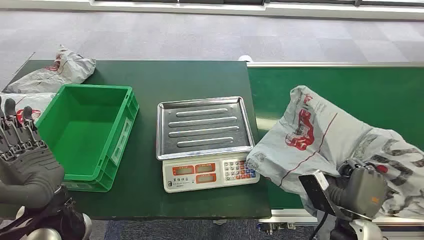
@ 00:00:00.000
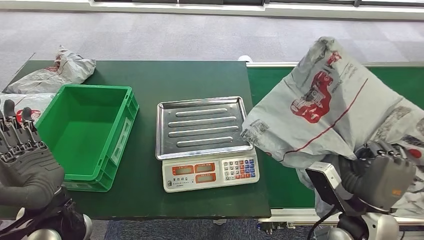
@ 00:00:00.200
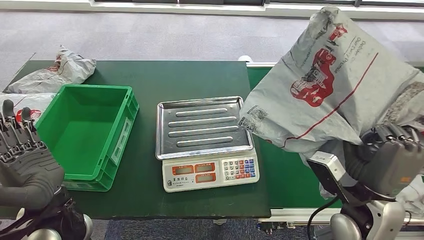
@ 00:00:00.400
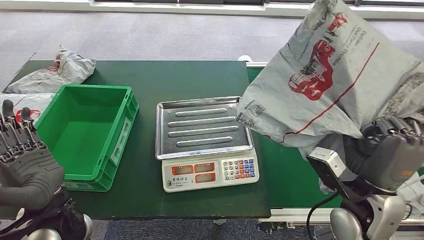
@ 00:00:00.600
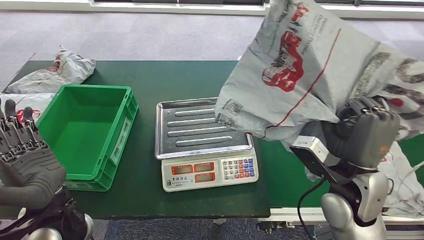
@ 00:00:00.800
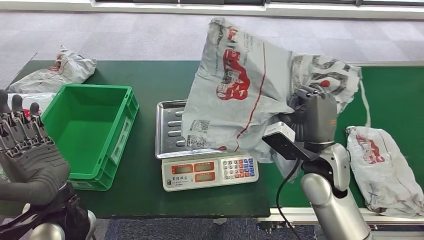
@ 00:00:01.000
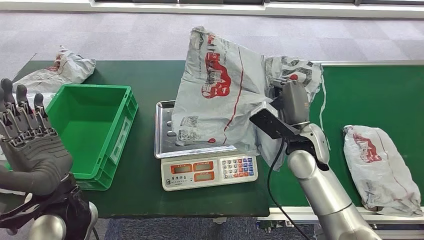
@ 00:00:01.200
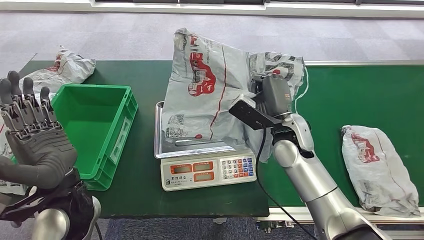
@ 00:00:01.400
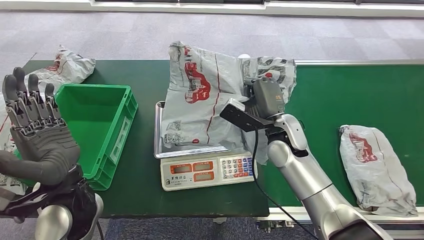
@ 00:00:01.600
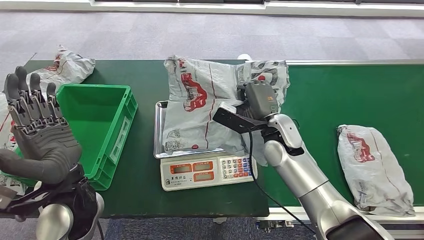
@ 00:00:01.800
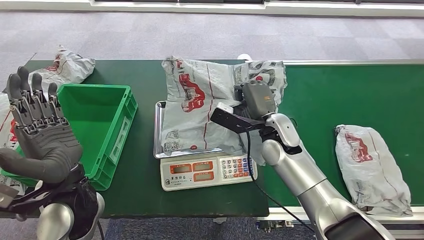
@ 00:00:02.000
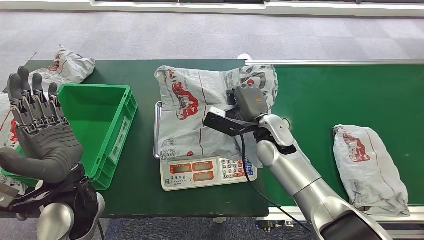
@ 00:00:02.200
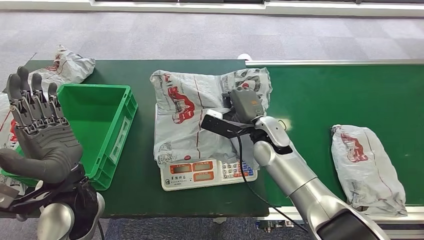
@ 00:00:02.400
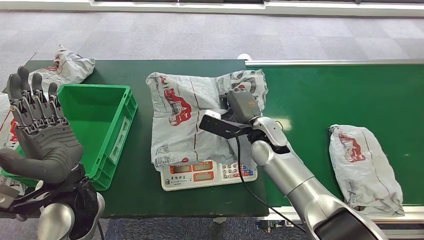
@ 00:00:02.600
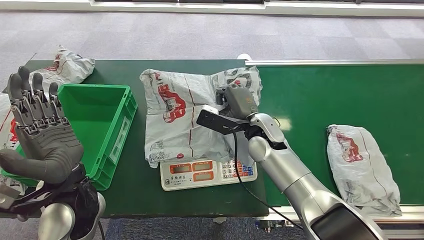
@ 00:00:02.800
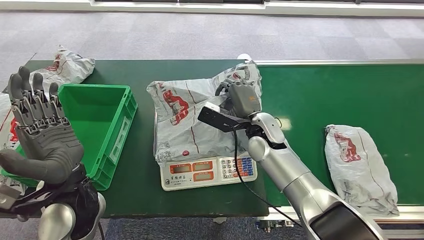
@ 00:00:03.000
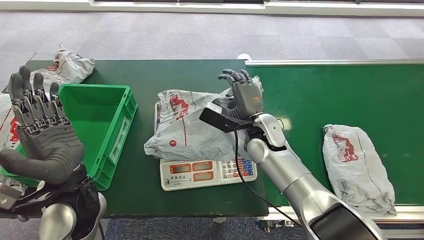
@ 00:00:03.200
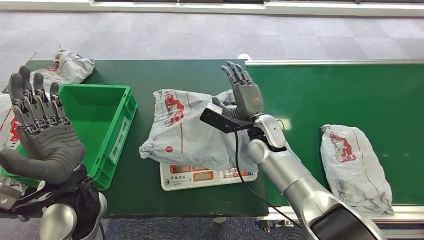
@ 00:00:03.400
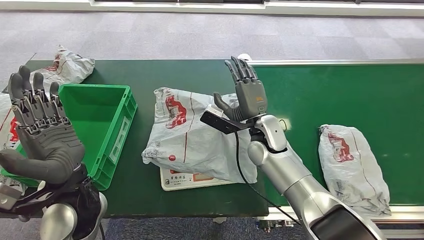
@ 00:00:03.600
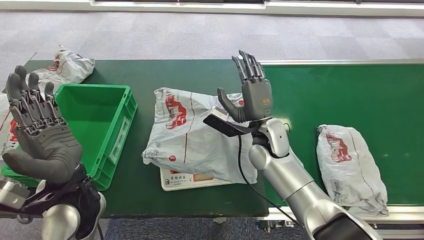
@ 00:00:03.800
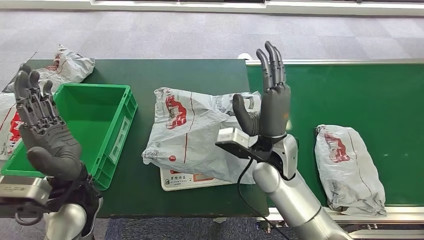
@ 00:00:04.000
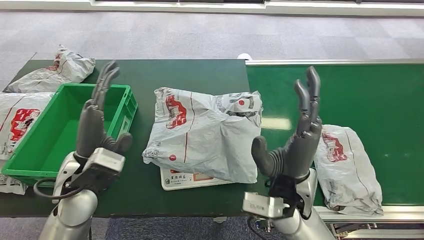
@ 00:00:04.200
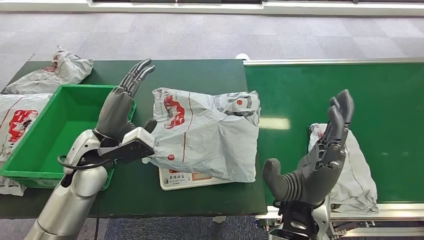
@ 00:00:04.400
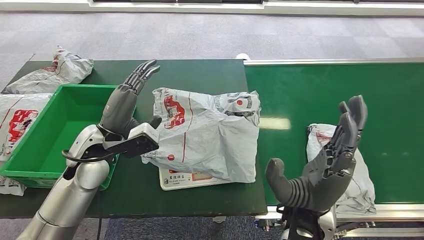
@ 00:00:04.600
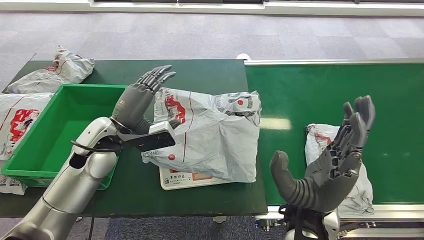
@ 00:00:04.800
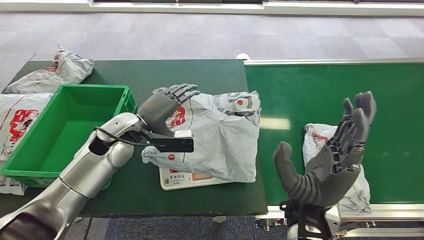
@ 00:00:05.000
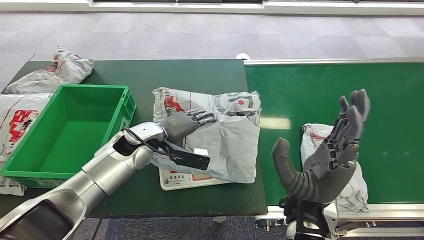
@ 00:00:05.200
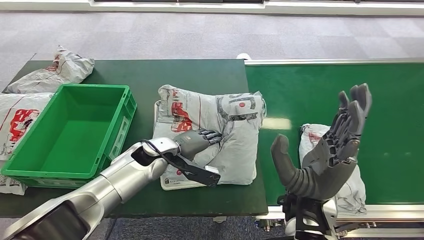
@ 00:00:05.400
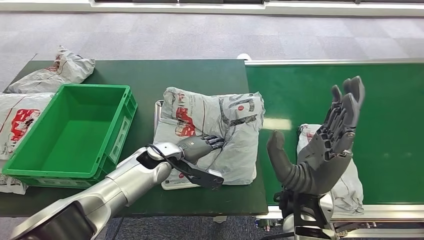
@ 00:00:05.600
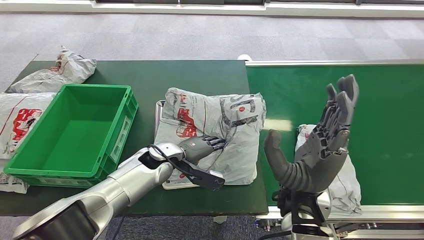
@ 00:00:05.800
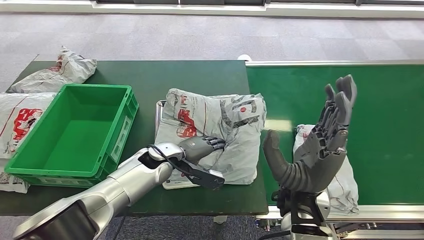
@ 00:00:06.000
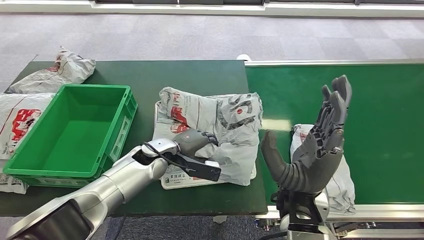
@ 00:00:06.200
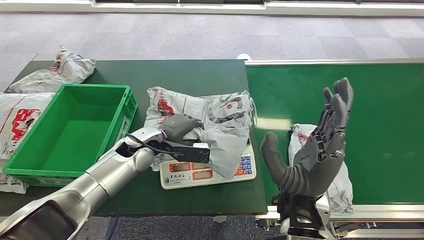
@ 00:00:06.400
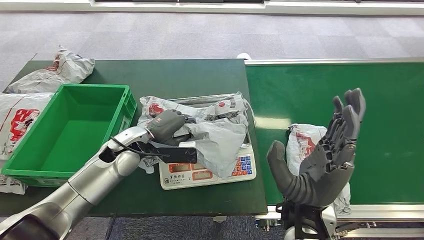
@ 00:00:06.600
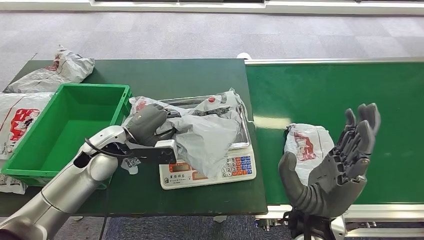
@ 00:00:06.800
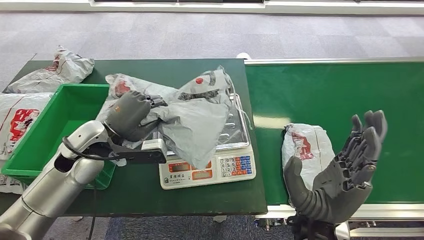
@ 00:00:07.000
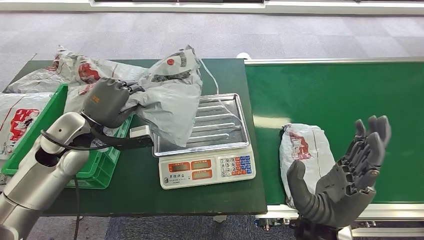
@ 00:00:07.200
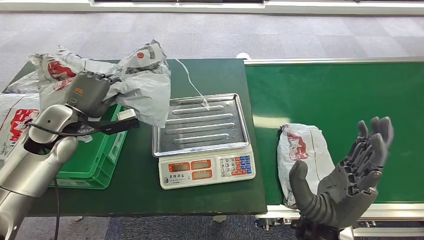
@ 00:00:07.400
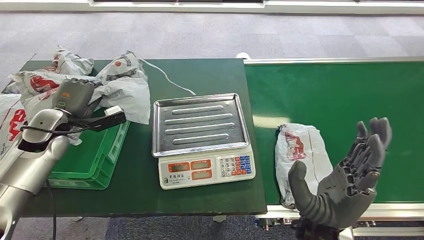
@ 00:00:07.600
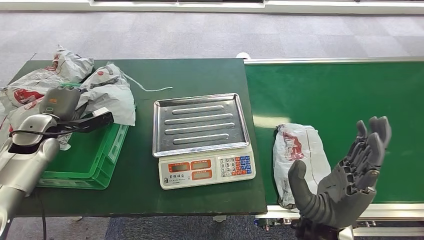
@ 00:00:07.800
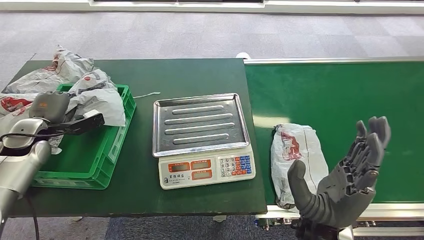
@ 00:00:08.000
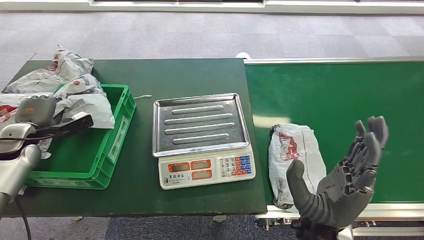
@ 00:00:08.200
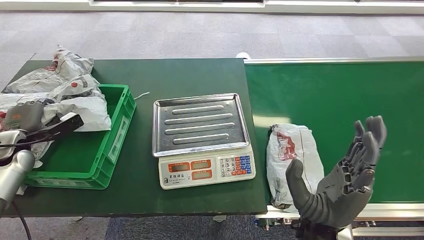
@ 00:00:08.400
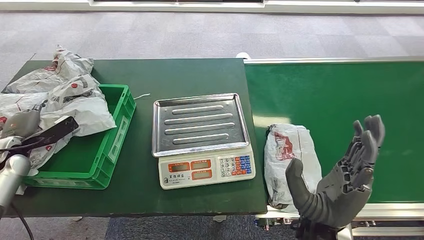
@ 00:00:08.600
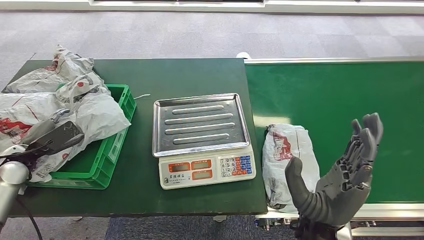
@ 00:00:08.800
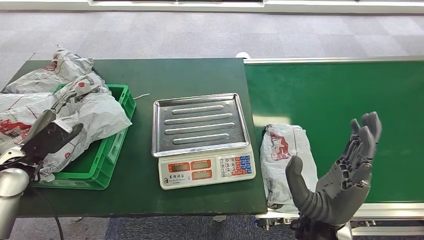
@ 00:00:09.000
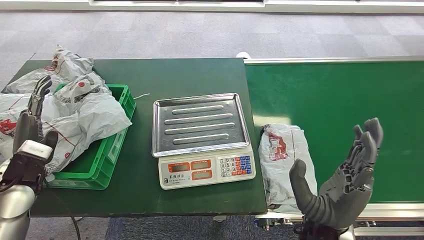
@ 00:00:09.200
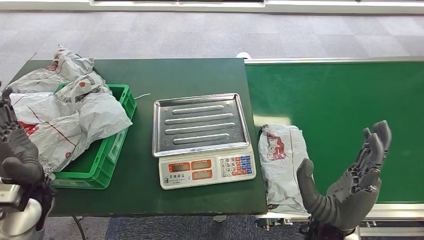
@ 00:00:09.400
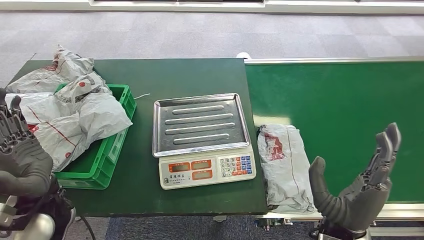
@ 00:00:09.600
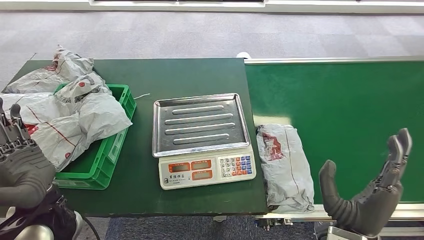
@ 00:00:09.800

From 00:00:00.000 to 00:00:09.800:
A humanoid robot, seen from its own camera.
Task of the whole recording: Weigh the package on the weighing device and place it in the left basket.
Step, from 00:00:00.000 to 00:00:00.800: Pick up the package from the conveyor belt.
Step, from 00:00:01.000 to 00:00:04.400: Place the package onto the inbound machine.
Step, from 00:00:04.600 to 00:00:07.200: Pick up the package from the inbound machine.
Step, from 00:00:07.400 to 00:00:09.800: Place the package into the parcel locker.
From 00:00:08.400 to 00:00:09.800: The left hand heads to the right and backward, covering about 30 cm, while the right hand shifts about 5 cm to the right.
